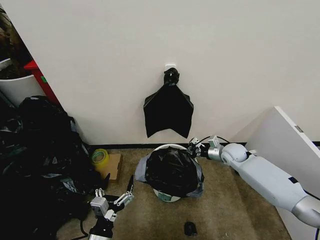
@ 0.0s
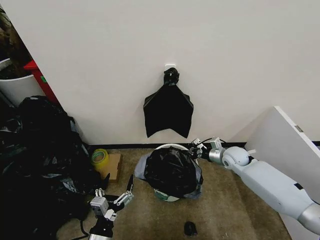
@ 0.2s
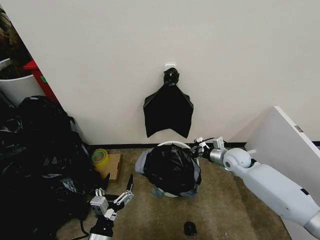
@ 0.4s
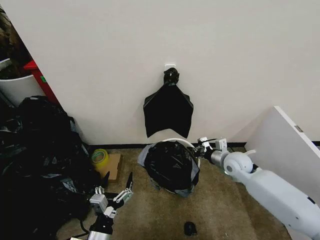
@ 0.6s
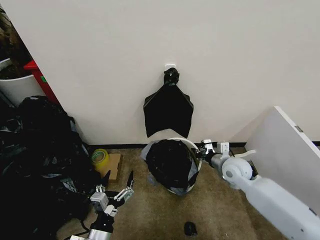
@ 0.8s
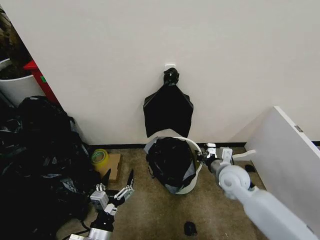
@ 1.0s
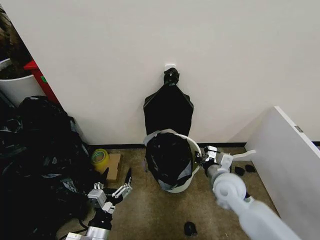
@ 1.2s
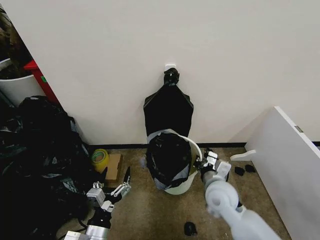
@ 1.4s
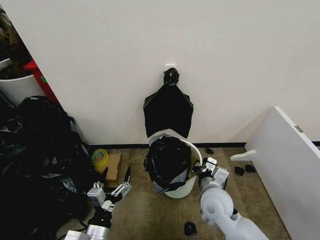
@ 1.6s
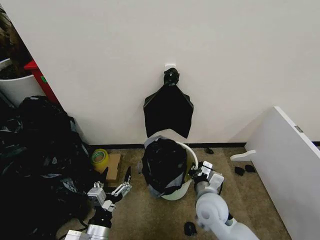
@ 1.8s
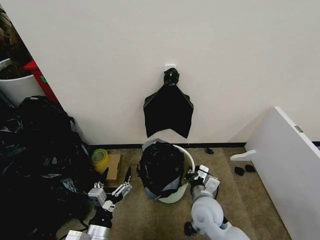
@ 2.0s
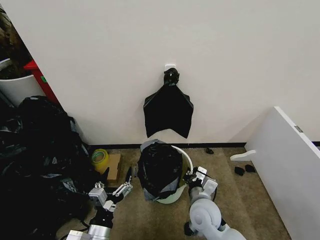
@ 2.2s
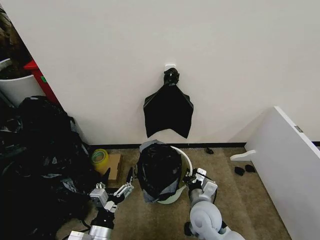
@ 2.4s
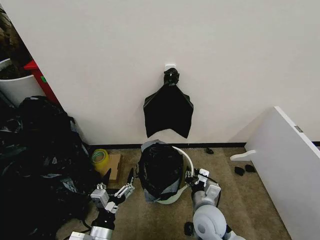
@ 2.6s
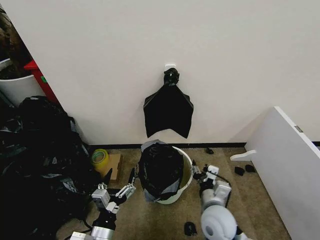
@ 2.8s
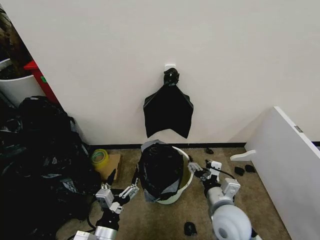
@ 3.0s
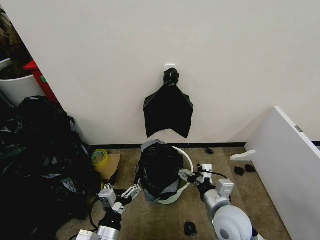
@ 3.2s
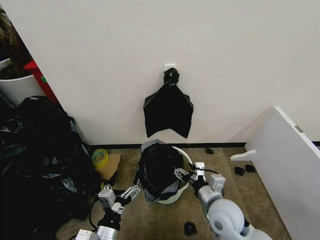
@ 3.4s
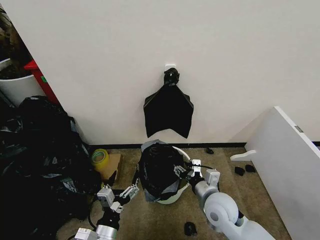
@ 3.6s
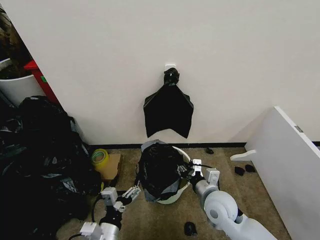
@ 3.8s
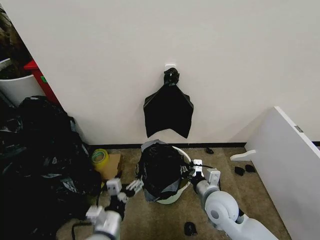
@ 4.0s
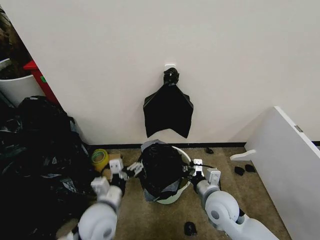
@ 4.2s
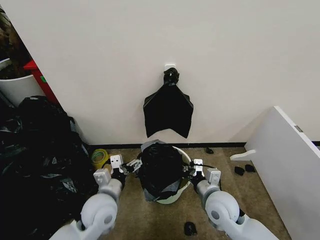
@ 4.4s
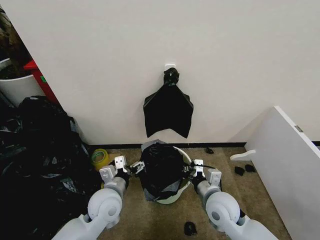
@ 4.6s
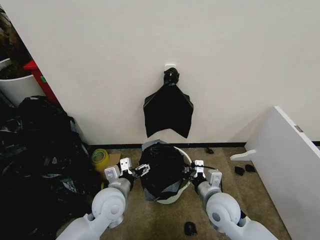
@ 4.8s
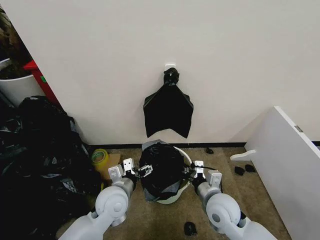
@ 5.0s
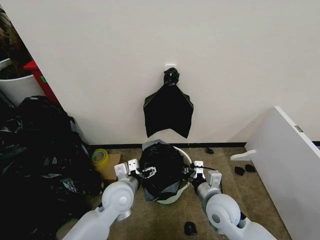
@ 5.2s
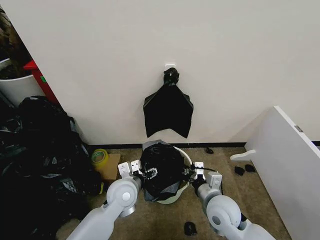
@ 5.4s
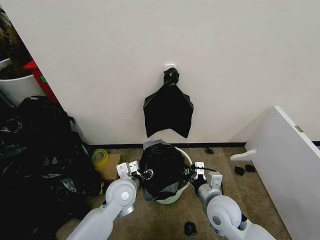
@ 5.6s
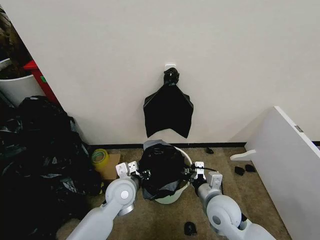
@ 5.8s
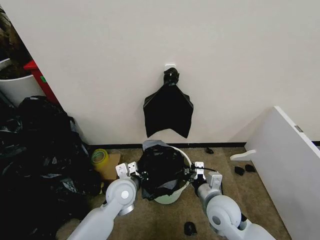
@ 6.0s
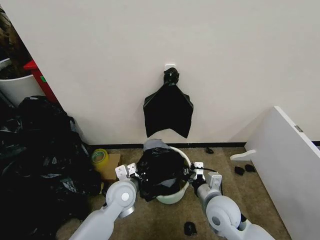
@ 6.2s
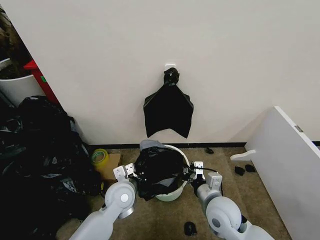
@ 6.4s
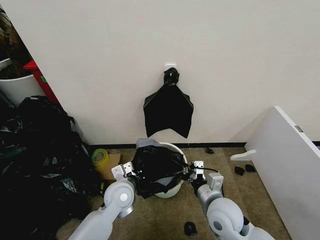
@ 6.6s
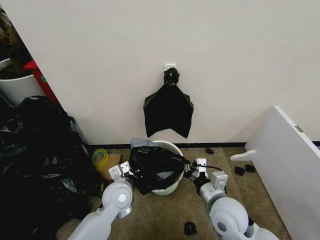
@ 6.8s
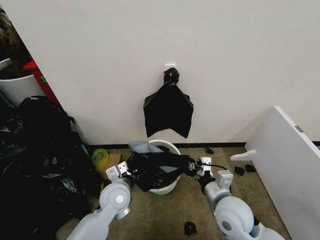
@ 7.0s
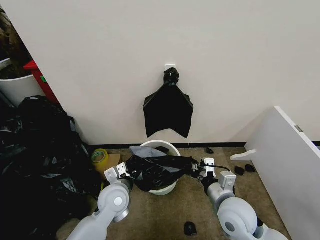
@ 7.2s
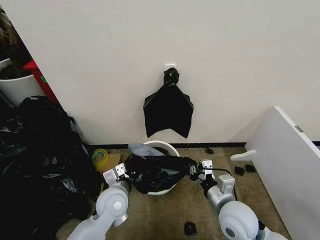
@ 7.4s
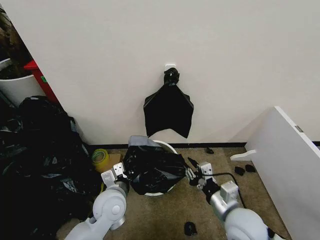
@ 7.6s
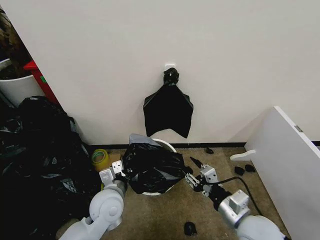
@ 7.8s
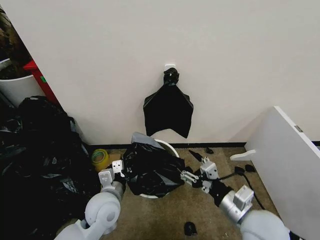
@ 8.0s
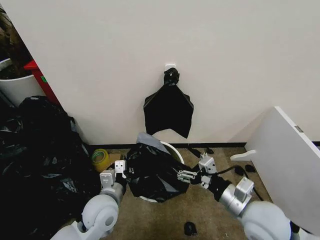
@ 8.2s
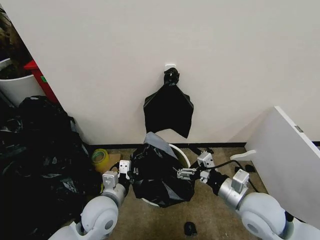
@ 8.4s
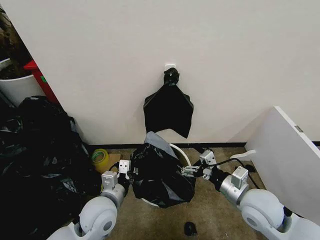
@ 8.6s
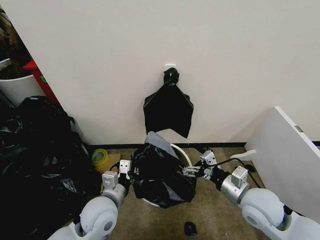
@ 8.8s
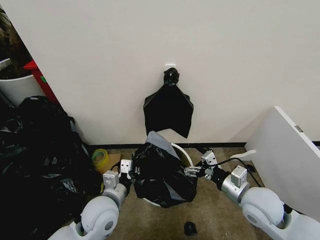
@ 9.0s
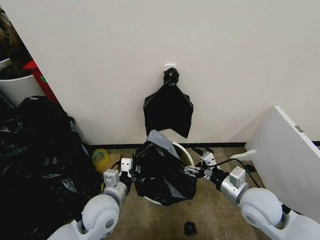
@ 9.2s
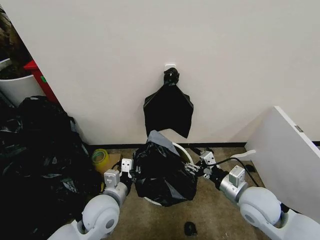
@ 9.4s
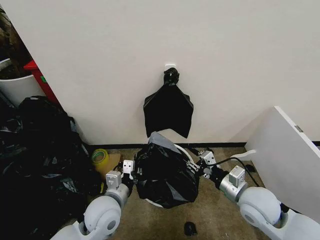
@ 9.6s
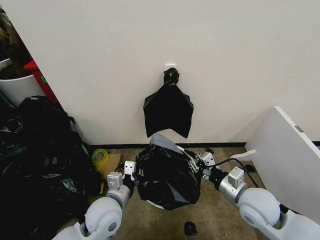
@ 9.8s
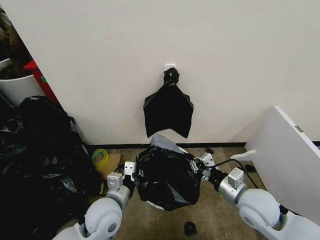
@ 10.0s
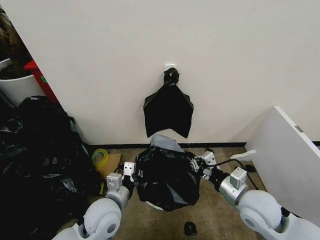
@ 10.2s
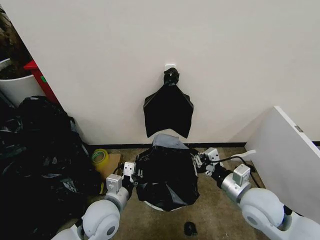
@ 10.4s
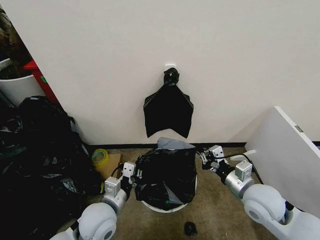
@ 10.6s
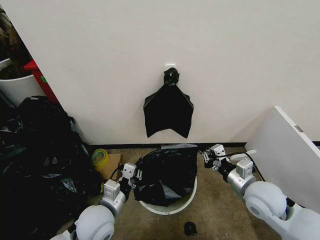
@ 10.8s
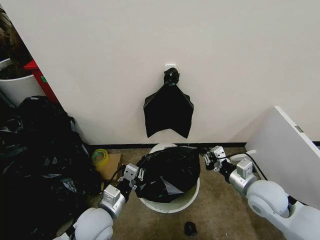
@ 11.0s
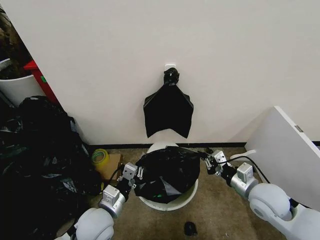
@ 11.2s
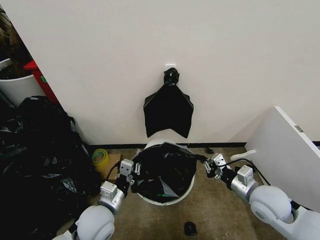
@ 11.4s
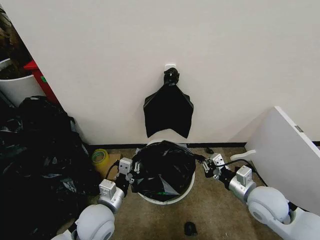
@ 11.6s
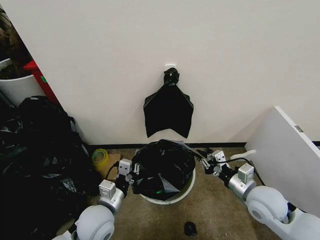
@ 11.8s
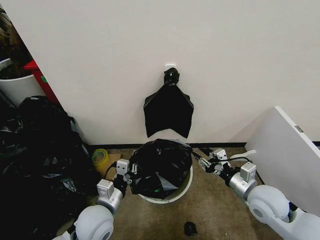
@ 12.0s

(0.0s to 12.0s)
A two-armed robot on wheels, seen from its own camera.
Task of the whole recording: Place the garbage bag over the trash bin.
0.0s - 1.6s: The right gripper goes roughly 20 cm backward and to the left.
1.6s - 3.0s: The right gripper travels backward by about 10 cm, and opens up.
3.0s - 4.4s: The right gripper moves about 5 cm, and closes its fingers. The left gripper moves forward, approximately 15 cm.
4.4s - 6.0s: The left gripper travels forward by about 5 cm, and closes up.
6.0s - 7.6s: The right gripper moves approximately 5 cm.
7.6s - 9.0s: The right gripper is displaced to the right by some 5 cm, and opens.
9.0s - 10.4s: The right gripper closes its fingers.

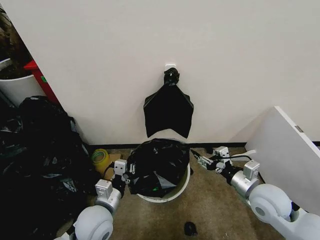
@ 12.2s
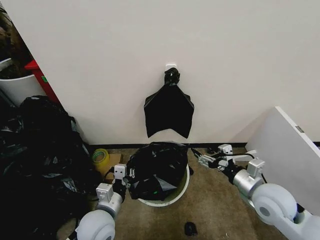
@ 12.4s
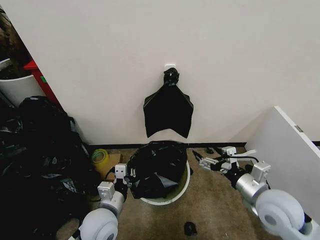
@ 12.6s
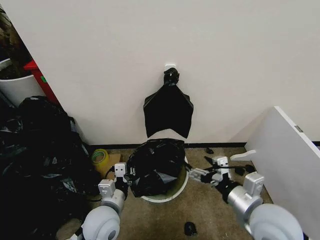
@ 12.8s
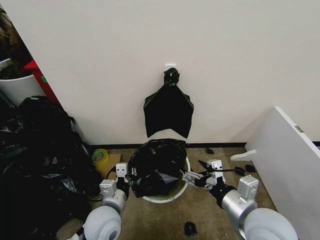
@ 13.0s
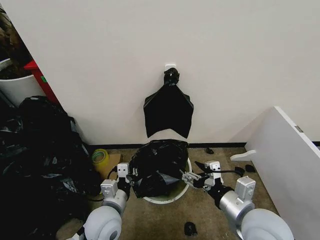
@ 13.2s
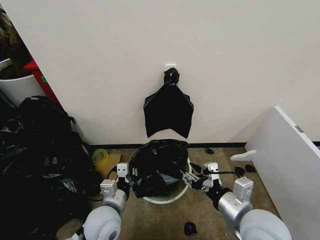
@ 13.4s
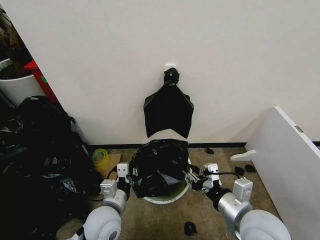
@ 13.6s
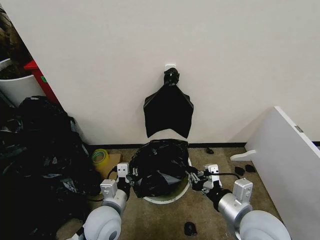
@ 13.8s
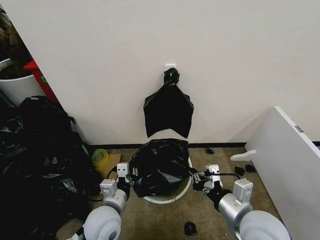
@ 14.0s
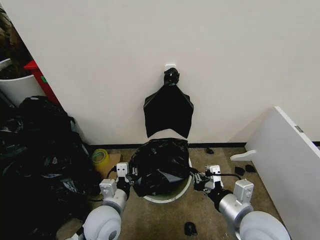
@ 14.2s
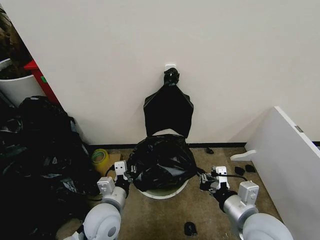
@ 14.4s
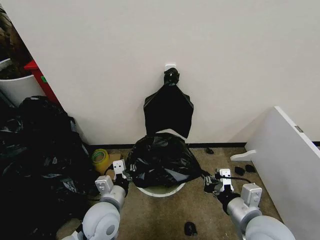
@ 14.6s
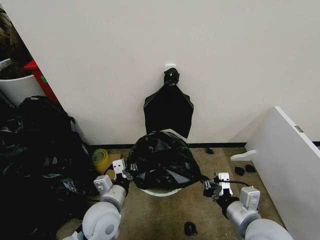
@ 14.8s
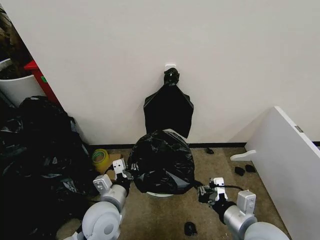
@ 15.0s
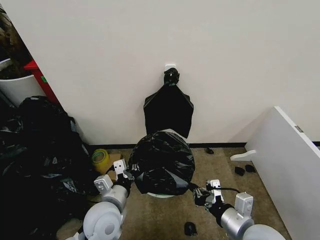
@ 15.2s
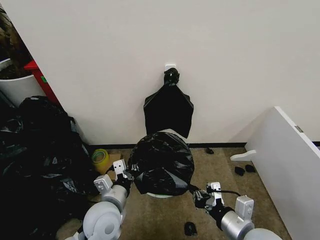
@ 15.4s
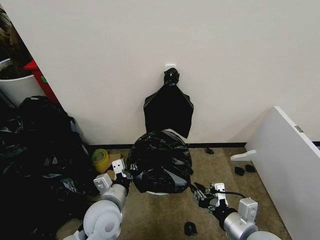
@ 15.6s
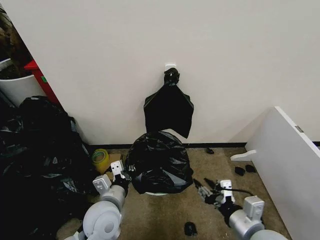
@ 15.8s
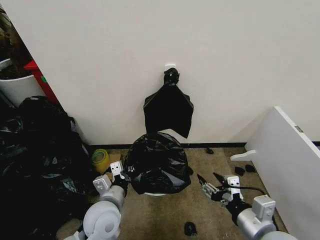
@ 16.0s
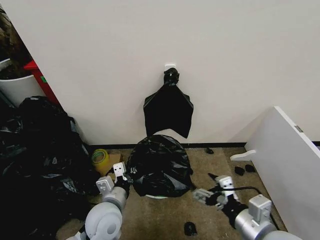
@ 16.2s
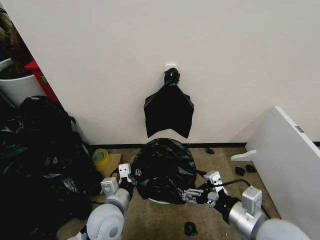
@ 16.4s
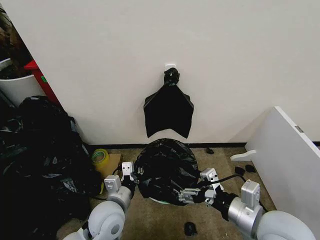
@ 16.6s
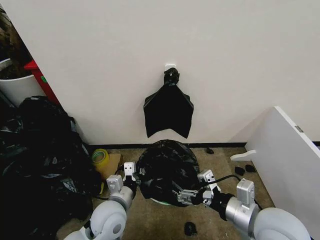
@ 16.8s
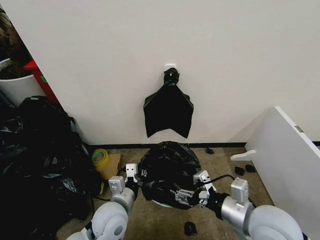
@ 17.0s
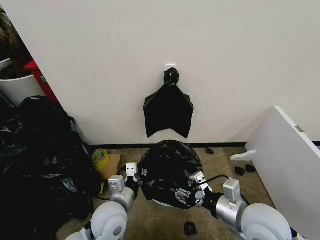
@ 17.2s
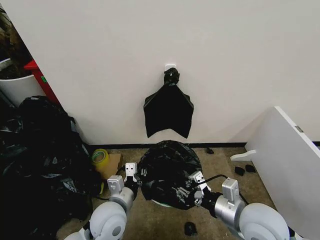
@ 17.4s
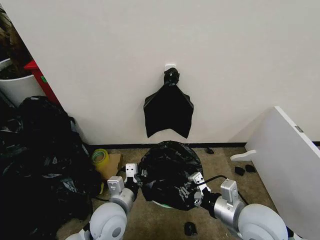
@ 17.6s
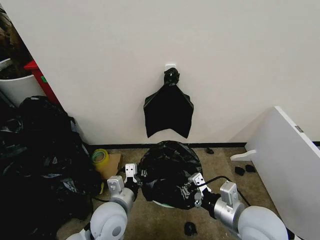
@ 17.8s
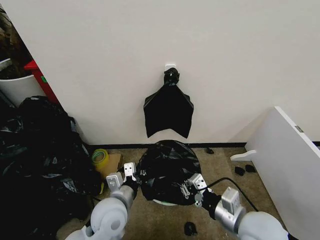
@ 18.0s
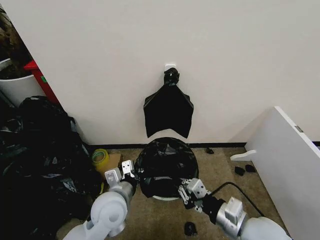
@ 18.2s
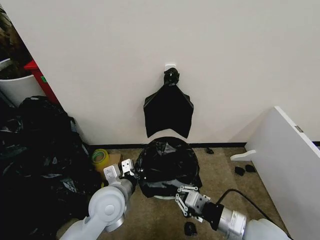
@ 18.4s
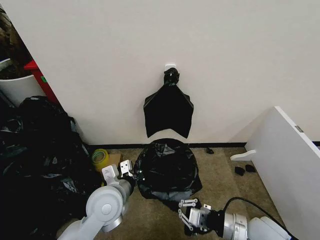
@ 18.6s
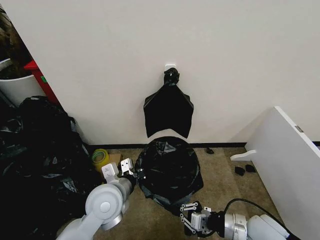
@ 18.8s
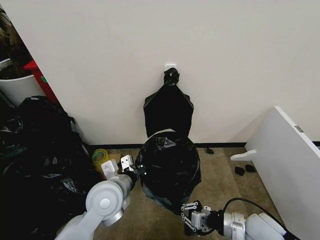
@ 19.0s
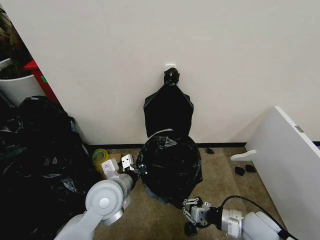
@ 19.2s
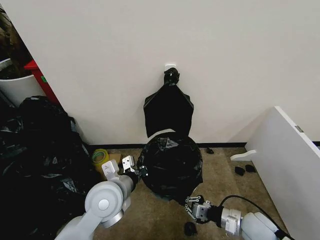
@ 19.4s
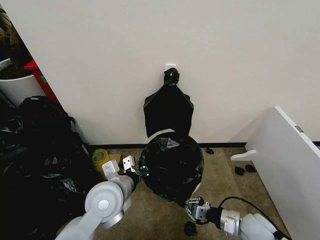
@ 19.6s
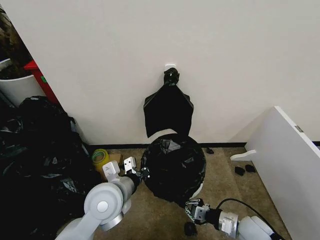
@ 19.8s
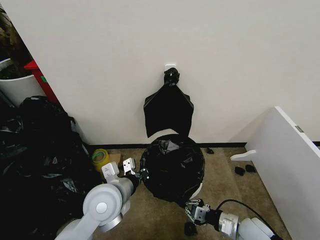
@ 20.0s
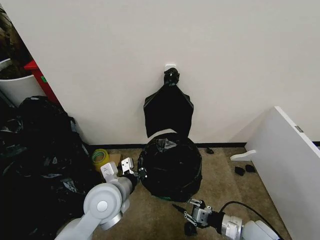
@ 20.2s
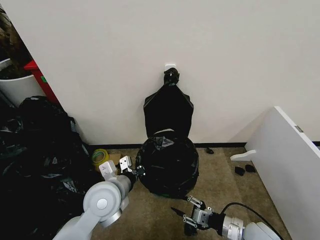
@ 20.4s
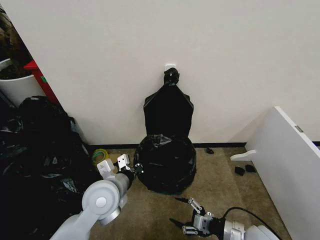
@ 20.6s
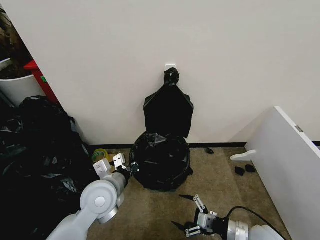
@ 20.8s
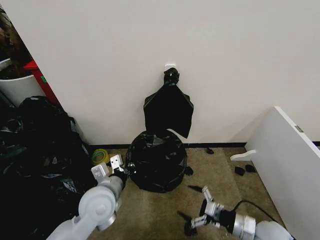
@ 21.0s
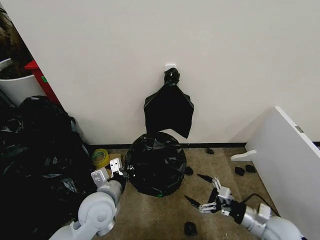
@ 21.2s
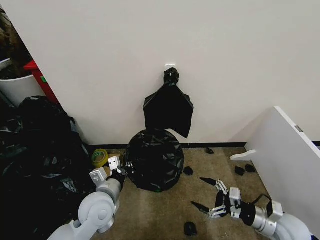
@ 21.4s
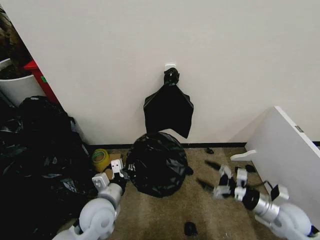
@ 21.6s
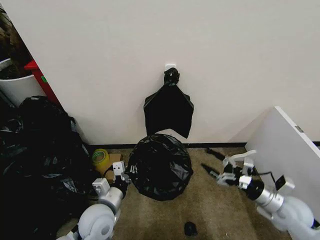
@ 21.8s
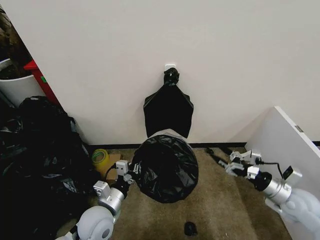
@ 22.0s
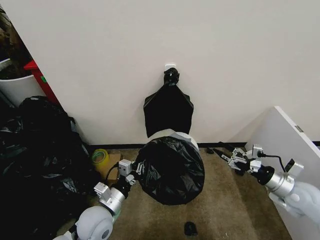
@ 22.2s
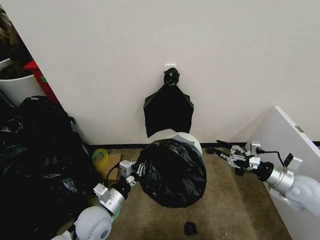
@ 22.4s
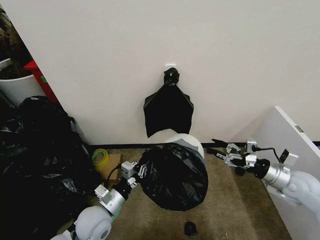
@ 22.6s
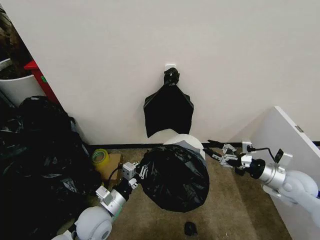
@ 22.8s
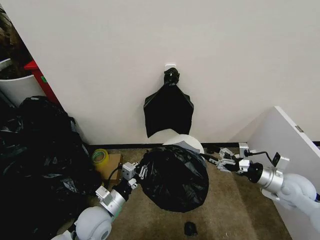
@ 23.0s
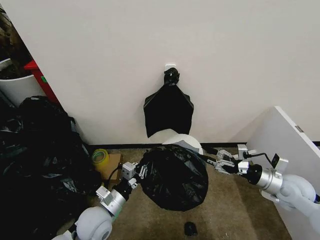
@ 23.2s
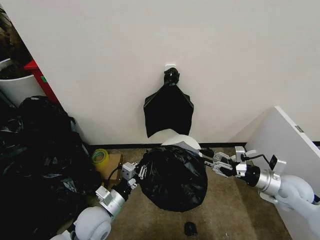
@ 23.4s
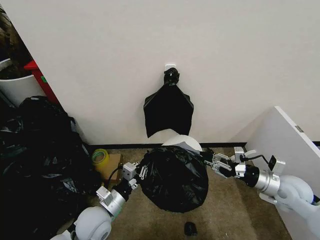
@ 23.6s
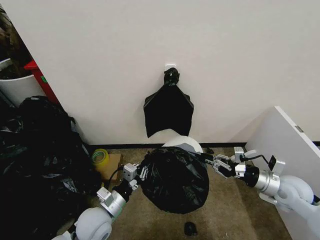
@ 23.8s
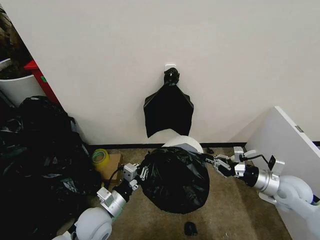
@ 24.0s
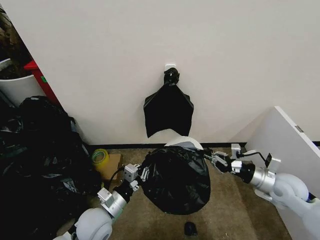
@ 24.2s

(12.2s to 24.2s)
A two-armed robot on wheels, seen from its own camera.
Task of the whole recording: Place the garbage bag over the trash bin.
12.2s - 13.8s: The right gripper travels backward and to the left by about 10 cm, and closes up.
13.8s - 15.2s: The grippers move only a little.
15.2s - 16.6s: The right gripper shifts roughly 5 cm upward, and opens.
16.6s - 18.2s: The right gripper is displaced downward by approximately 5 cm, and closes its fingers.
18.2s - 19.8s: The right gripper moves downward and to the right, approximately 15 cm.
19.8s - 21.2s: The right gripper moves approximately 5 cm, and opens its fingers. The left gripper moves approximately 5 cm.
21.2s - 22.6s: The right gripper moves forward, upward and to the right, roughly 15 cm. The left gripper goes some 5 cm downward.
22.6s - 24.2s: The right gripper closes.
